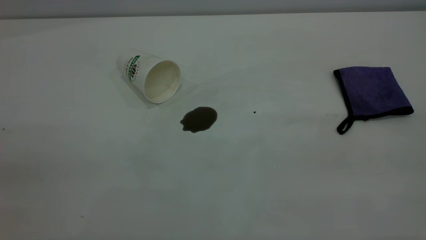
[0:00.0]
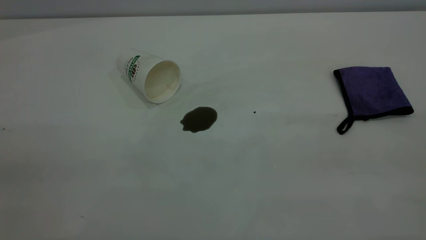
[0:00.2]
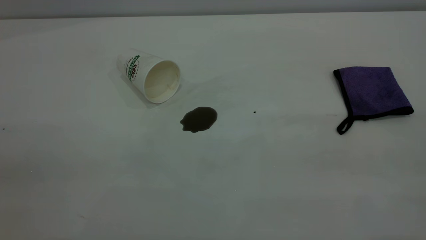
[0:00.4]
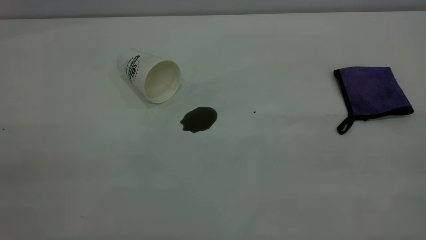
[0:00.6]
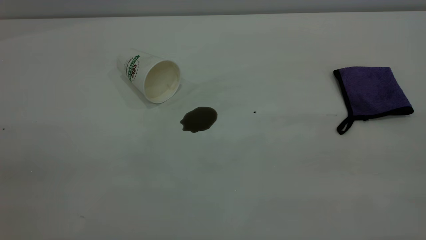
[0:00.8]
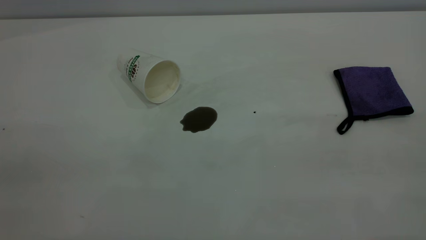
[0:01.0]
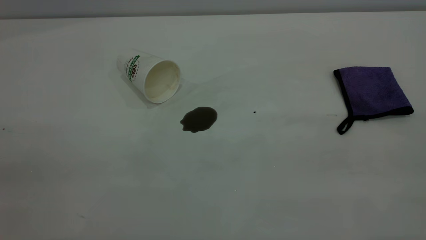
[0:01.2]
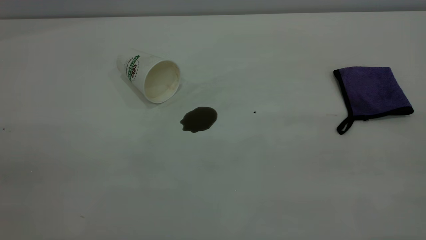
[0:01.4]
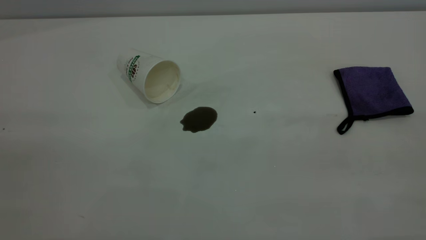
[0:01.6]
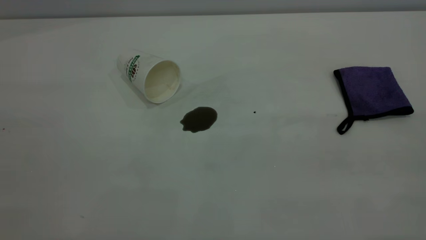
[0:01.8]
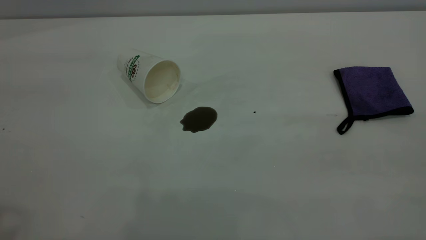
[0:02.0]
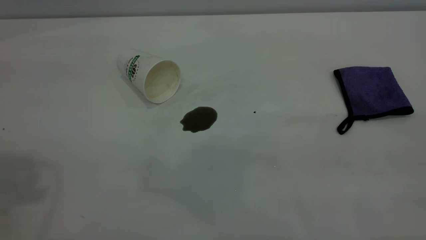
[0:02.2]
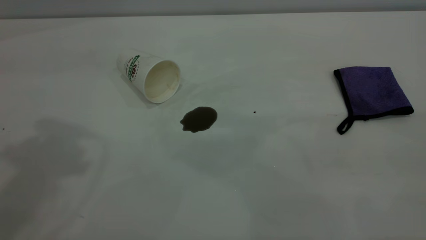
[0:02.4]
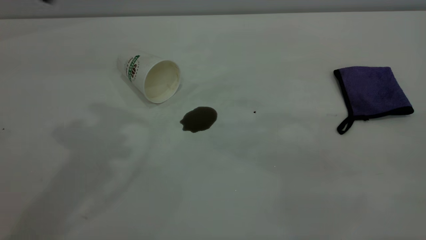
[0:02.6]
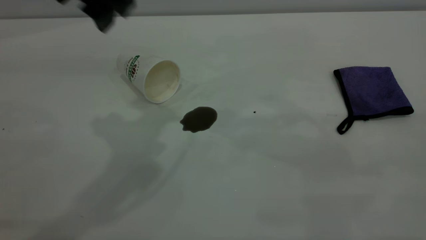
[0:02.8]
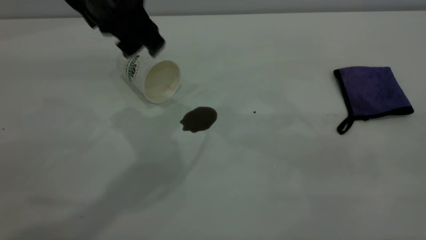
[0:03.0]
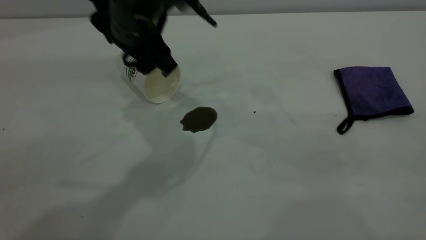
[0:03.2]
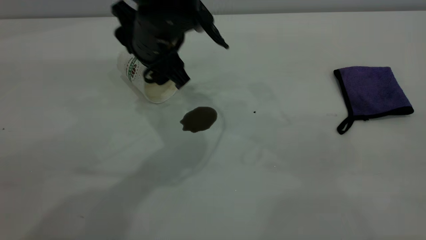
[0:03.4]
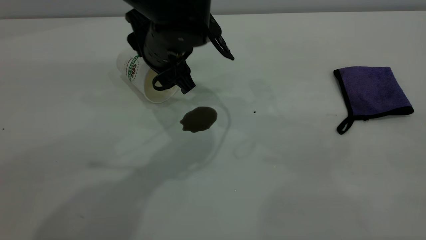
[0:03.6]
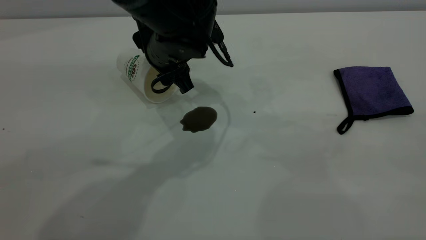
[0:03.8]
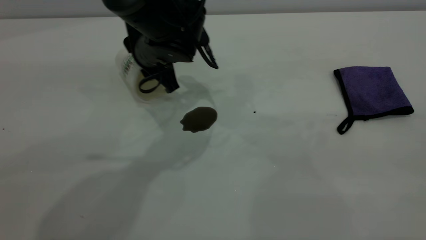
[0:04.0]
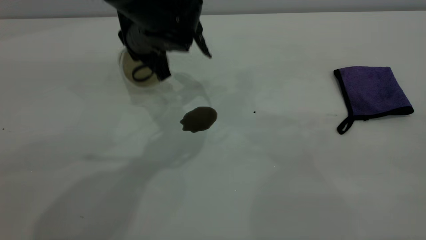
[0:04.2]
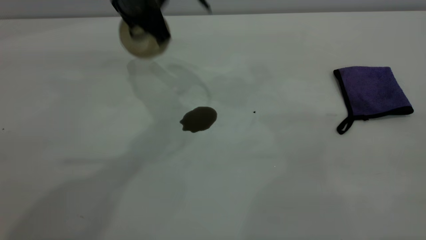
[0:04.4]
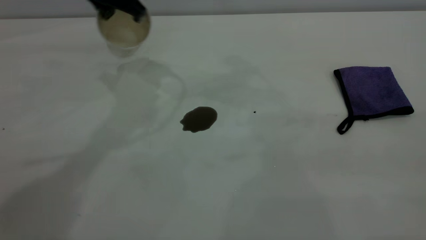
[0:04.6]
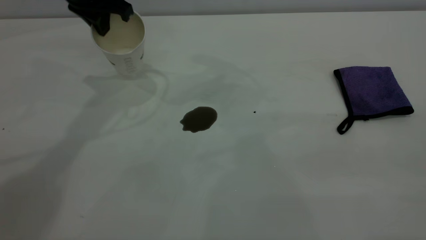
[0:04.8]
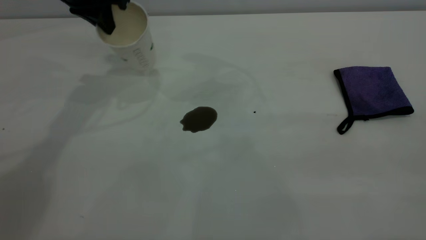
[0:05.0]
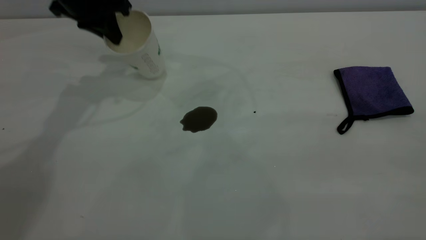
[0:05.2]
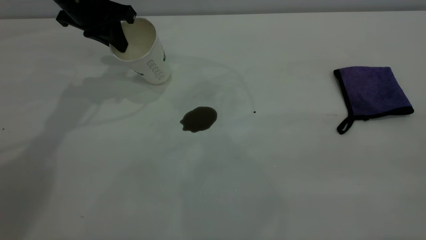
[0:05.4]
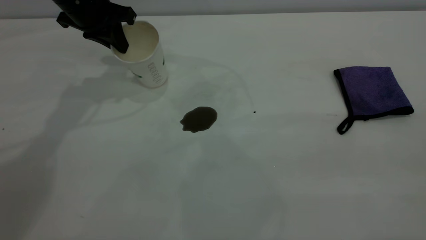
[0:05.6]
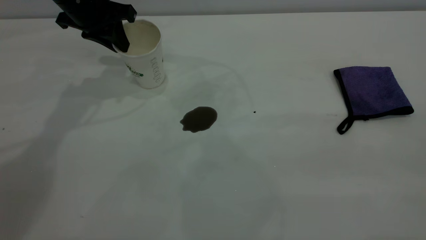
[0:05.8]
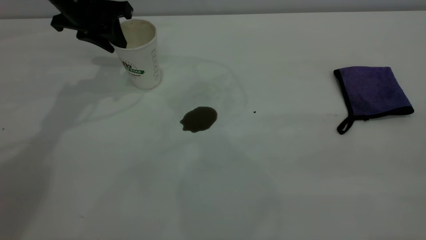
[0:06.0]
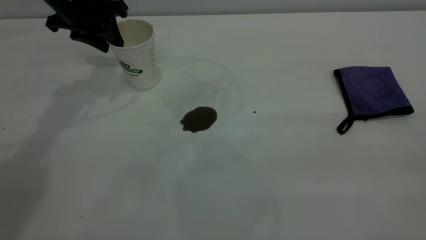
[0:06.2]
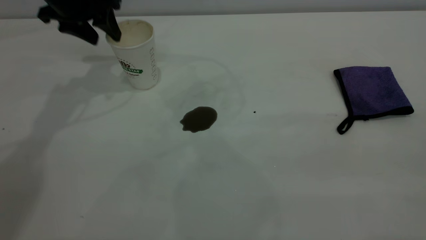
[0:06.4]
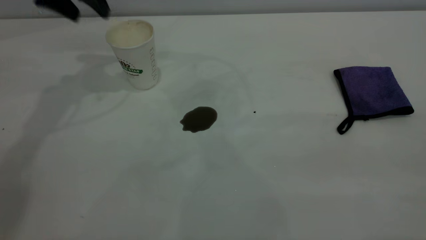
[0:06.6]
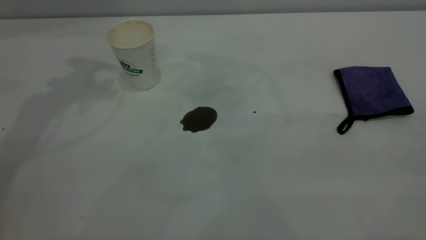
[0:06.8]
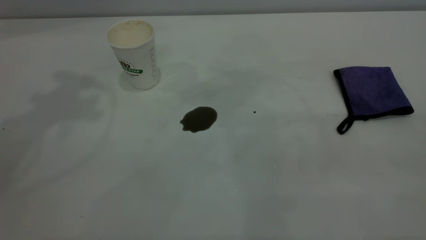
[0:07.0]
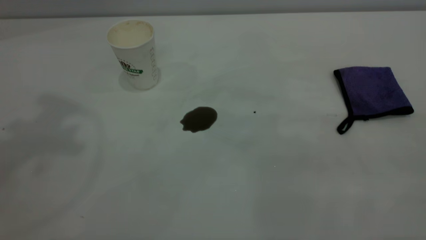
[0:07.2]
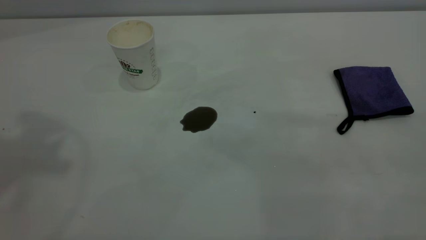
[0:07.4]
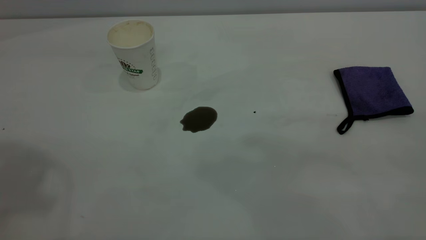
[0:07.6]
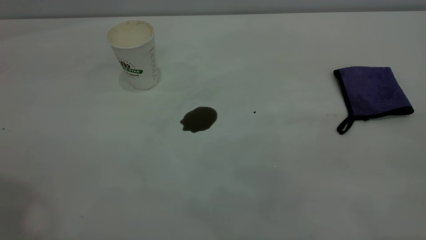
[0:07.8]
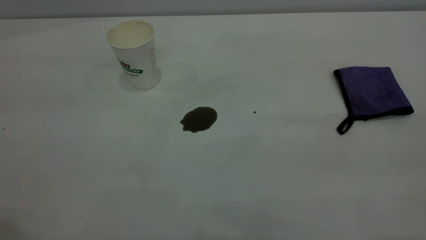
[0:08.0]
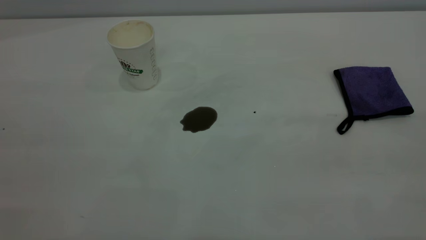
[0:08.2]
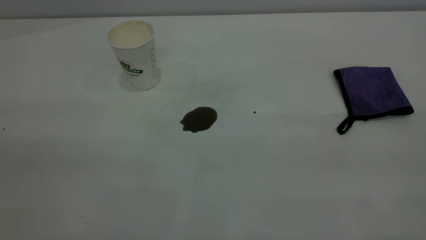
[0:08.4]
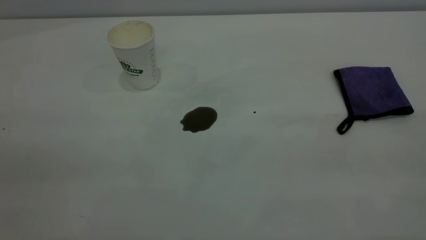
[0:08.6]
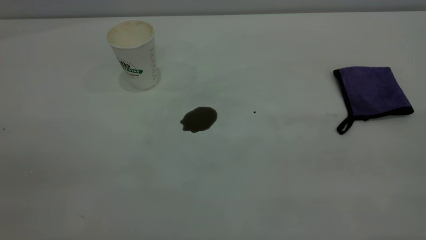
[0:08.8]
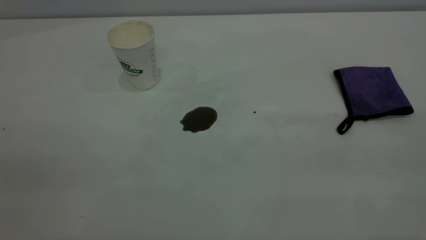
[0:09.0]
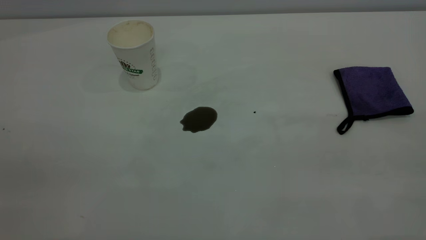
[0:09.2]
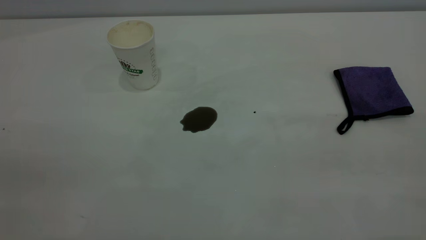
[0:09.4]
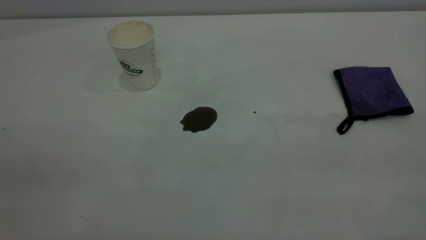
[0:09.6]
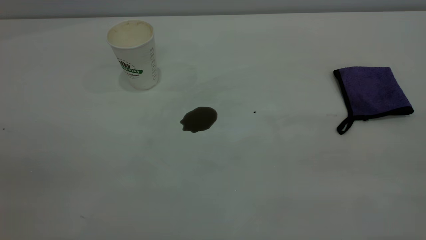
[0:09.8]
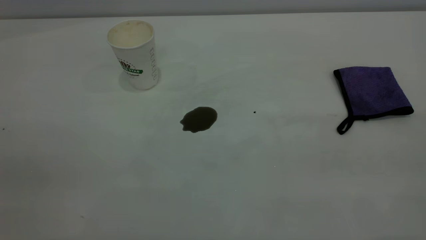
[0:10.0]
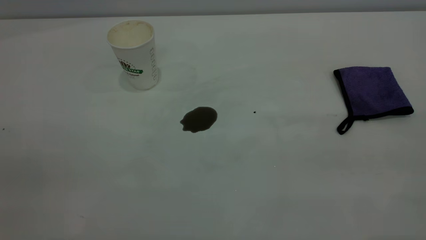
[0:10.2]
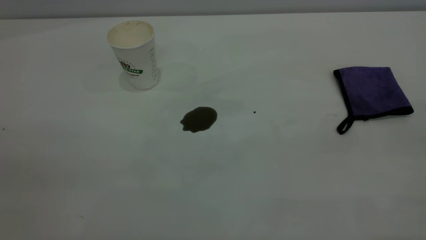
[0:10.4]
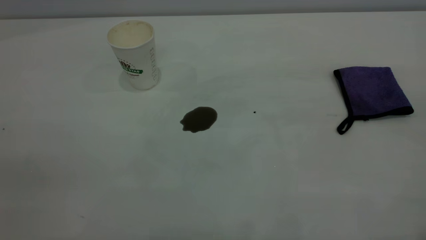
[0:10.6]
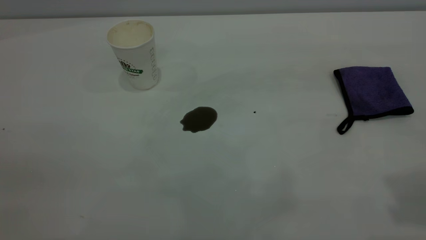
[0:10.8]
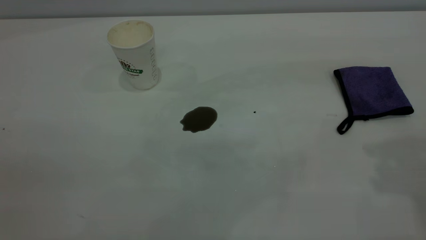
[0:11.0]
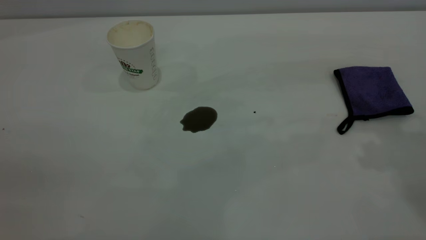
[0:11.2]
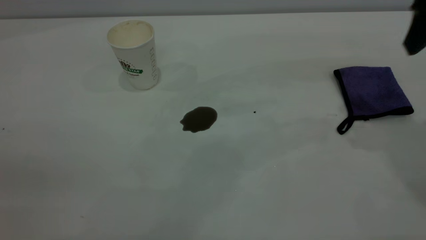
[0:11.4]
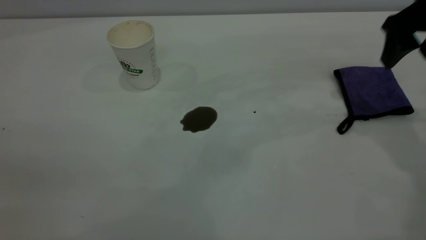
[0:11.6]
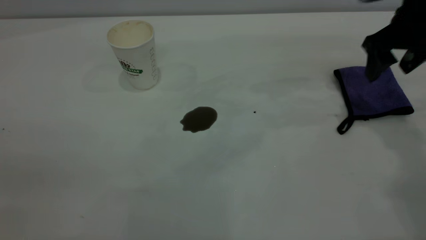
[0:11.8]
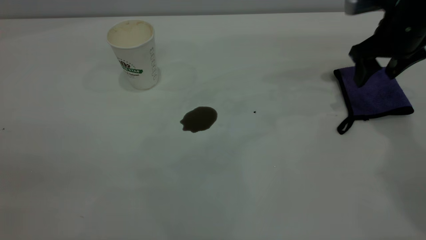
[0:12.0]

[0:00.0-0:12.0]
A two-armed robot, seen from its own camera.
Task of the whole recording: the left gripper pick up the fallen cup and place it upright, the right gripper grasp the purple rag and wipe the coffee stain on the table, the right gripper put the purple rag back in its original position.
Step, 0:00.0 to 0:06.4: Stand the paper cup upright.
0:01.6 to 0:03.0: The left gripper moves forward, to the right and downward, about 40 cm, and opens up.
0:03.0 to 0:04.4: The left gripper shifts approximately 10 cm forward, moves some 10 cm downward and comes back, and closes up.
0:04.4 to 0:06.0: The left gripper travels to the left by approximately 15 cm, and opens.
0:06.0 to 0:07.6: The left gripper shifts approximately 40 cm upward and backward, and opens, then closes once more.
0:10.4 to 0:12.0: The right gripper goes approximately 50 cm forward and downward.

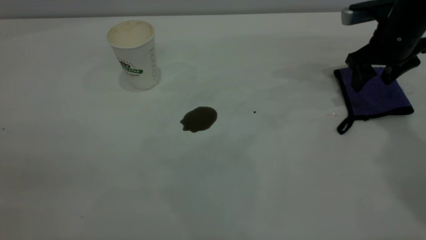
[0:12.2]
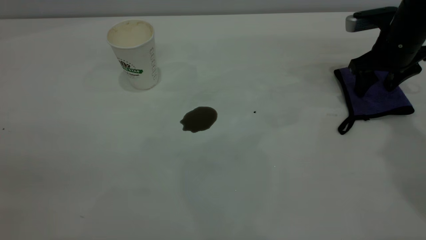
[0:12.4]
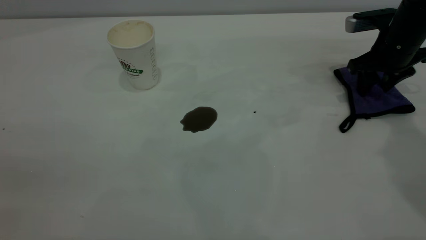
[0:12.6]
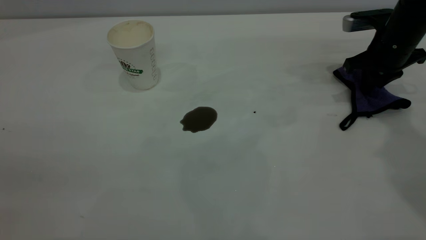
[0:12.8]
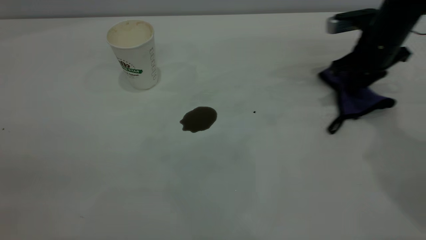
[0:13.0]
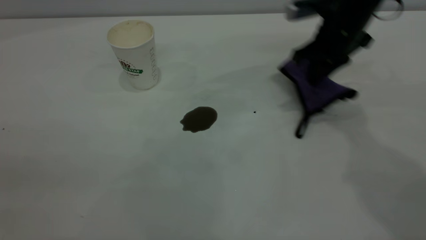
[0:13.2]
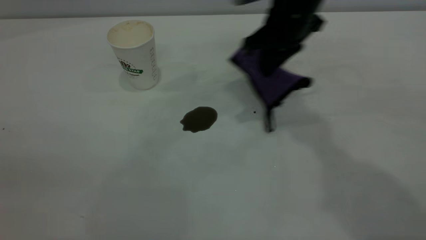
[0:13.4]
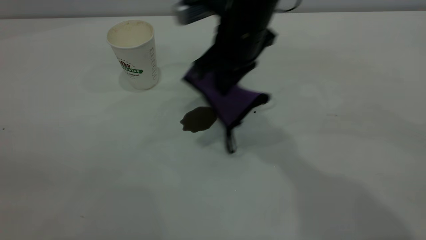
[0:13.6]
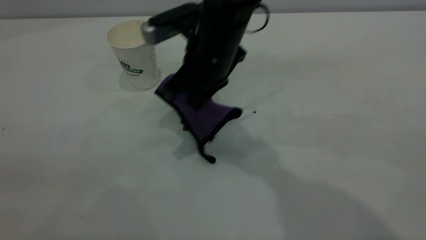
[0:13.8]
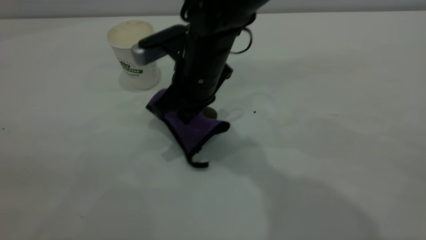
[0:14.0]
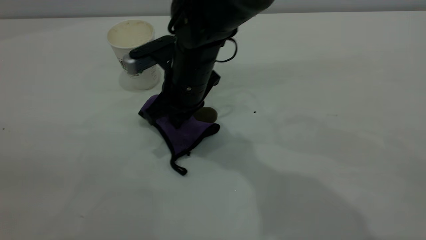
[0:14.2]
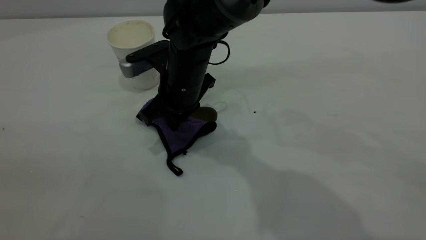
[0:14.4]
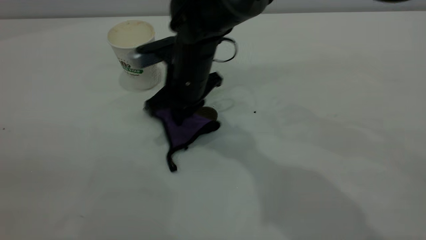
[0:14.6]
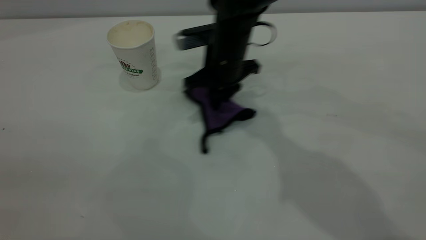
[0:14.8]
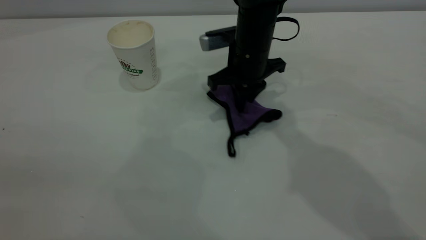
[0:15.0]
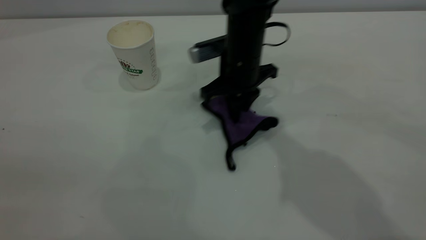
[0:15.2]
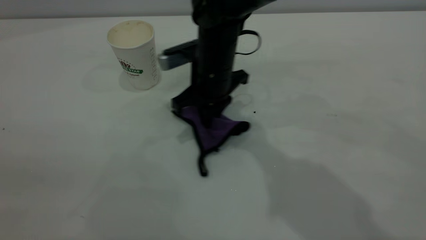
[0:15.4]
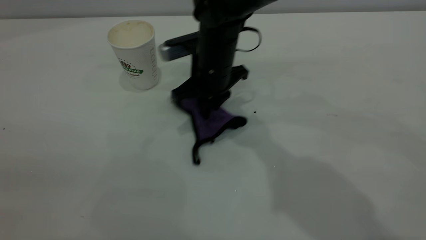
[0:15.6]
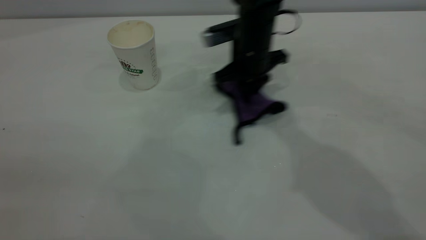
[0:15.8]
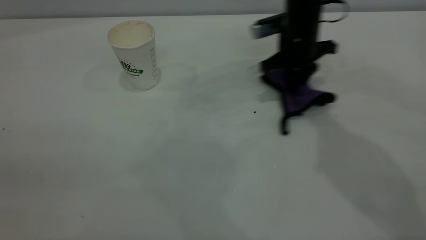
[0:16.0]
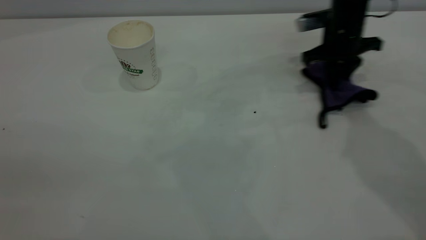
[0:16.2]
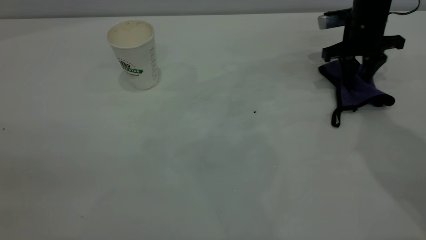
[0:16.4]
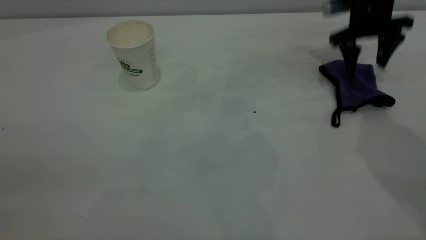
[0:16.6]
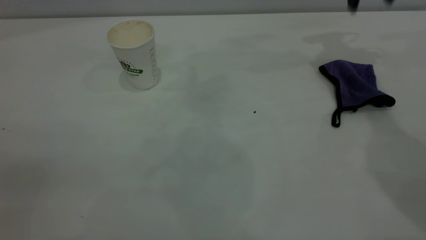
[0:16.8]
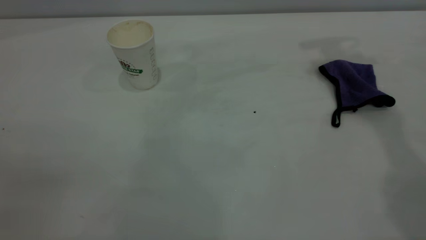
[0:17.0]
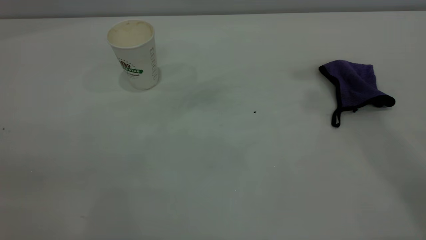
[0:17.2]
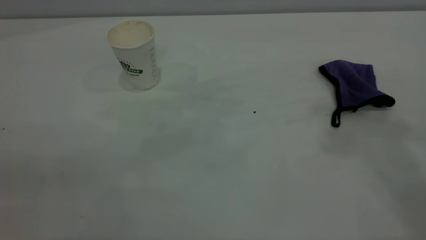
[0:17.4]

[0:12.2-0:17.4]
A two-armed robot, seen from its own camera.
Task of the whole recording: the left gripper pick up the fallen cup and place it upright, the right gripper grasp the purple rag and wipe the coffee stain on the table, the right gripper put the purple rag back in its original position.
Step, 0:12.2 to 0:16.6: Wipe the stains off the table with a rag.
0:12.2 to 0:14.0: The right gripper is displaced to the left by approximately 30 cm, and closes its fingers.
0:14.0 to 0:15.6: The right gripper goes approximately 5 cm forward.
0:15.6 to 0:17.4: The right gripper goes approximately 40 cm upward and to the right, and opens its fingers.
